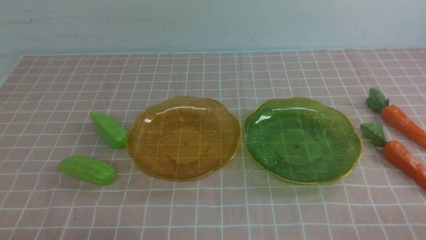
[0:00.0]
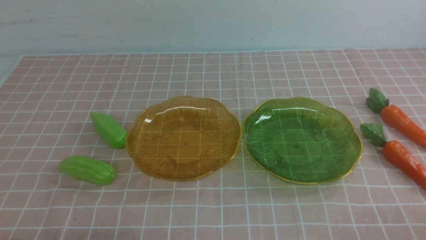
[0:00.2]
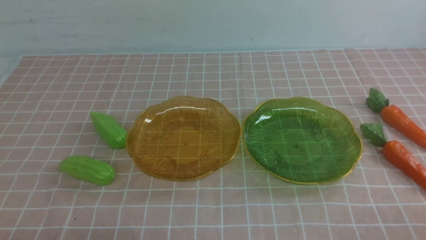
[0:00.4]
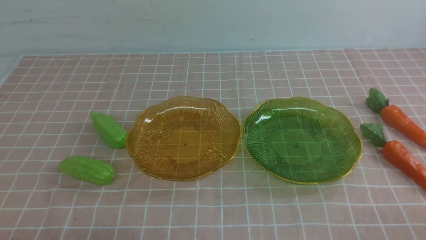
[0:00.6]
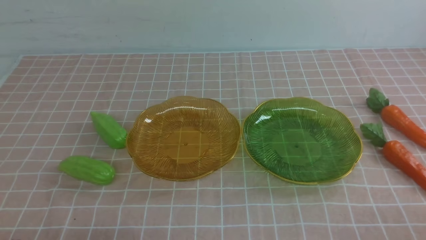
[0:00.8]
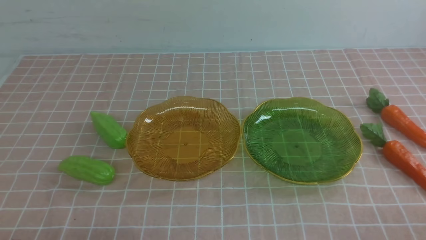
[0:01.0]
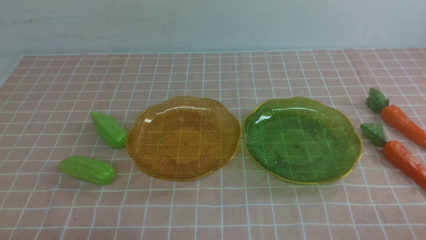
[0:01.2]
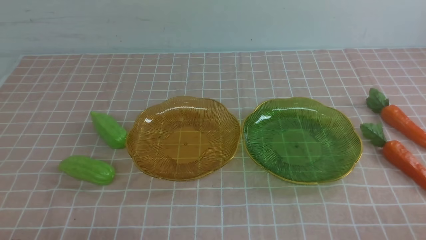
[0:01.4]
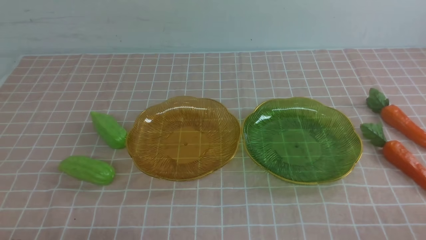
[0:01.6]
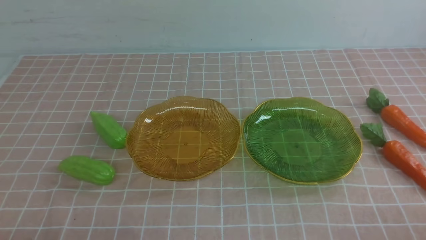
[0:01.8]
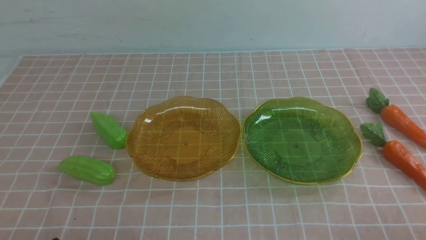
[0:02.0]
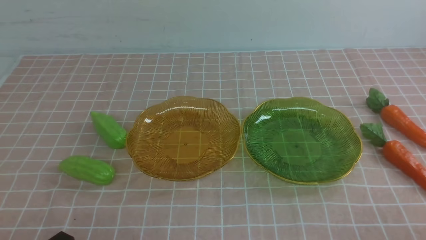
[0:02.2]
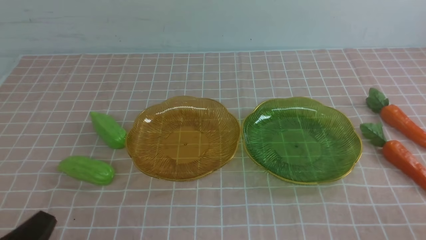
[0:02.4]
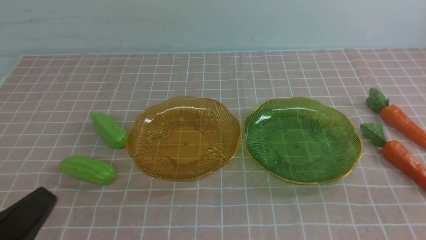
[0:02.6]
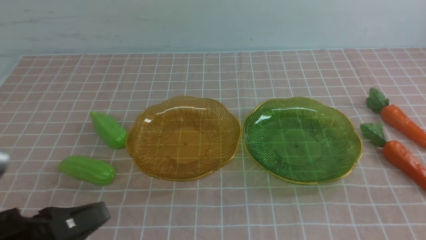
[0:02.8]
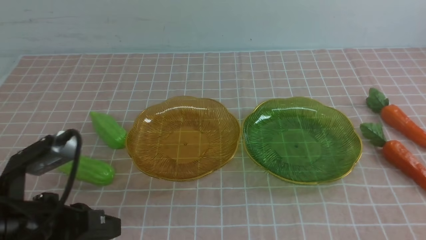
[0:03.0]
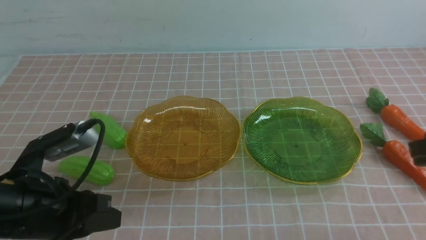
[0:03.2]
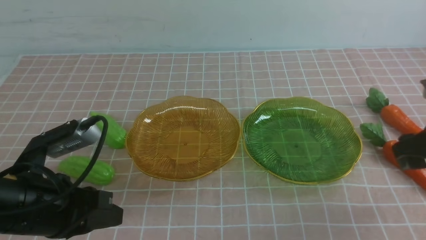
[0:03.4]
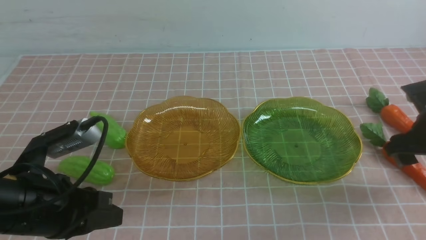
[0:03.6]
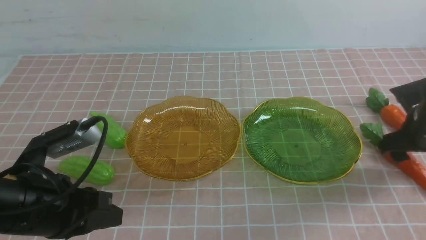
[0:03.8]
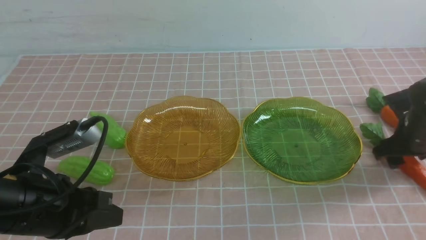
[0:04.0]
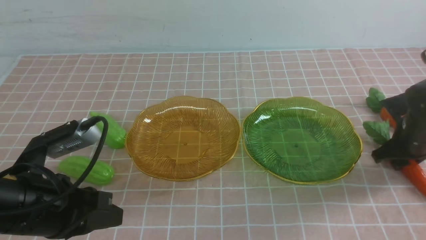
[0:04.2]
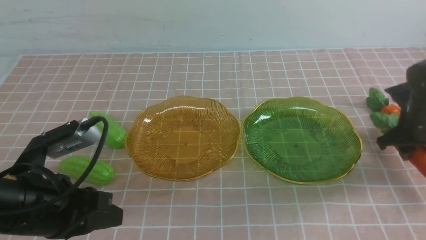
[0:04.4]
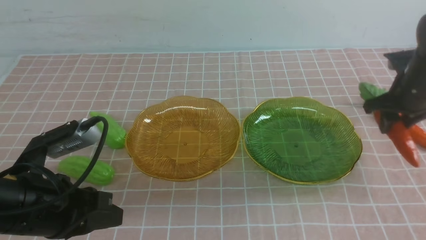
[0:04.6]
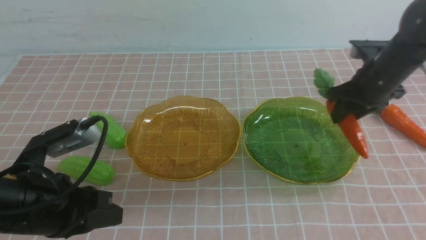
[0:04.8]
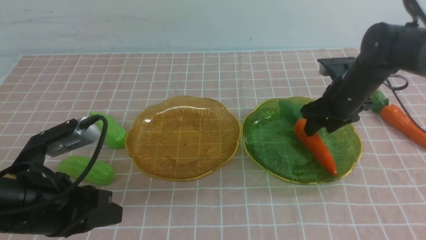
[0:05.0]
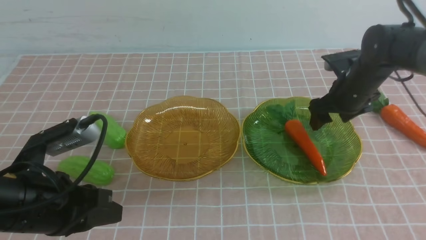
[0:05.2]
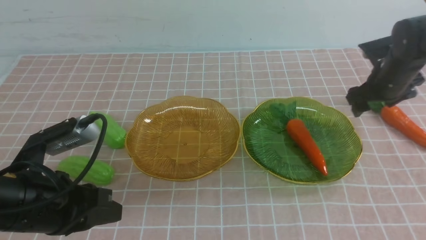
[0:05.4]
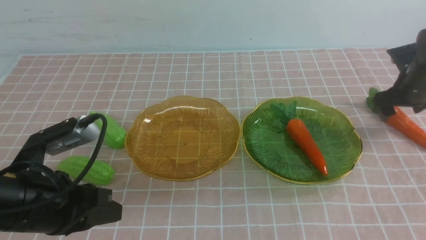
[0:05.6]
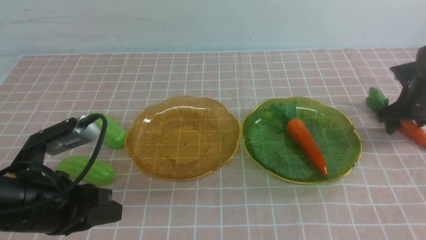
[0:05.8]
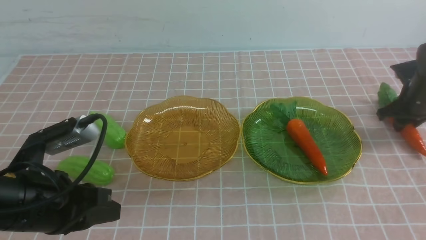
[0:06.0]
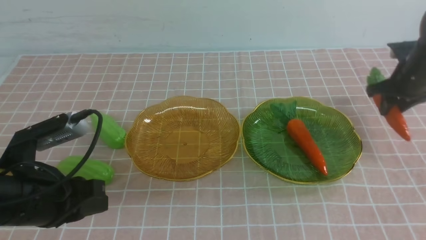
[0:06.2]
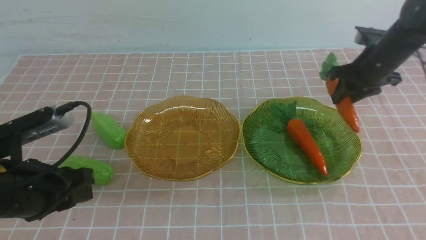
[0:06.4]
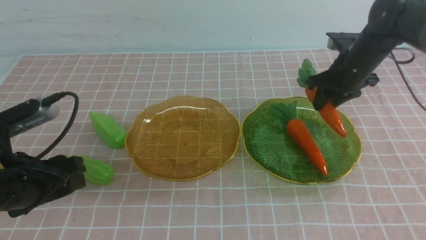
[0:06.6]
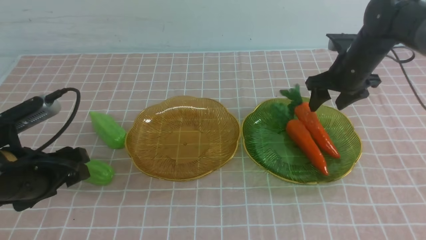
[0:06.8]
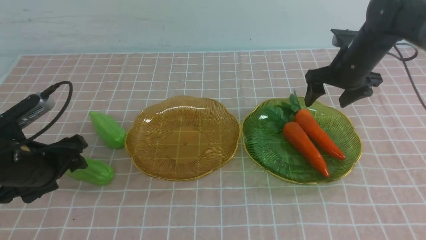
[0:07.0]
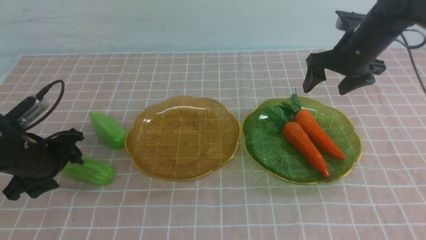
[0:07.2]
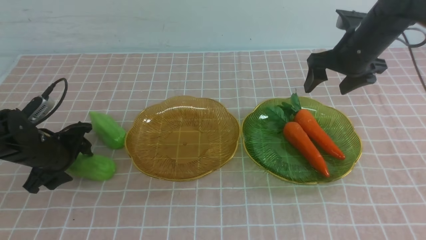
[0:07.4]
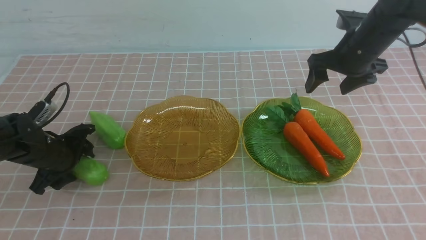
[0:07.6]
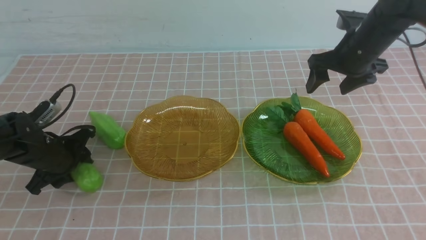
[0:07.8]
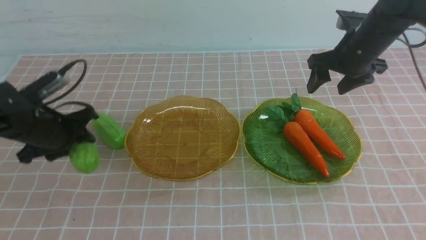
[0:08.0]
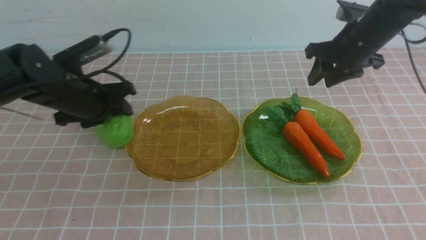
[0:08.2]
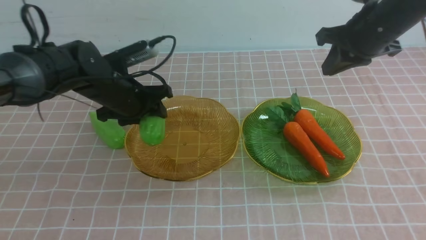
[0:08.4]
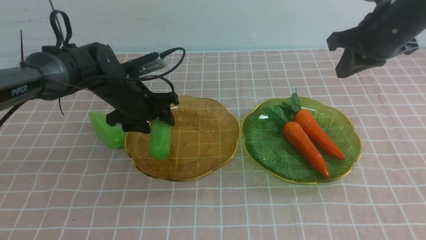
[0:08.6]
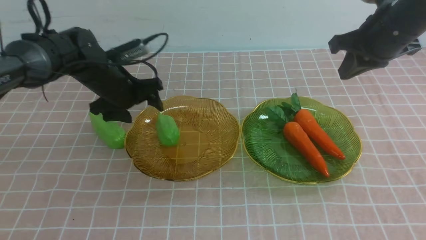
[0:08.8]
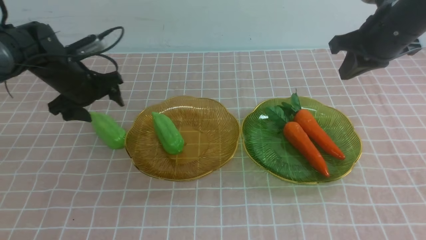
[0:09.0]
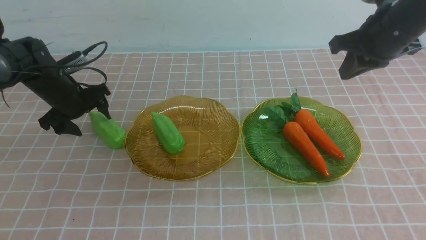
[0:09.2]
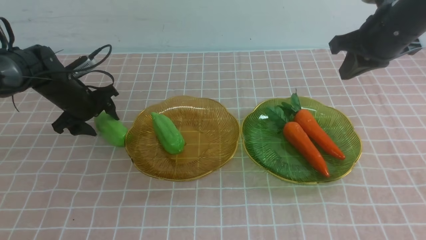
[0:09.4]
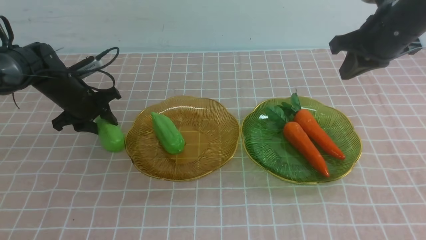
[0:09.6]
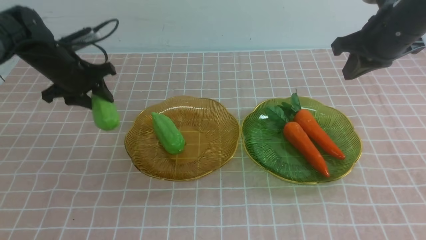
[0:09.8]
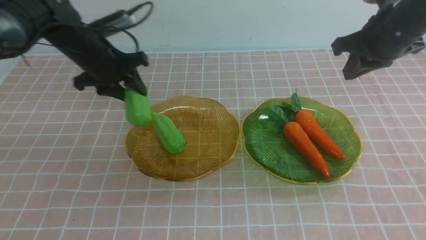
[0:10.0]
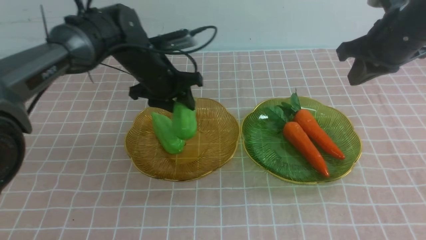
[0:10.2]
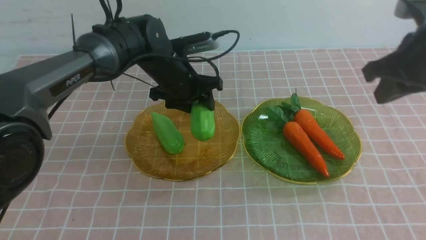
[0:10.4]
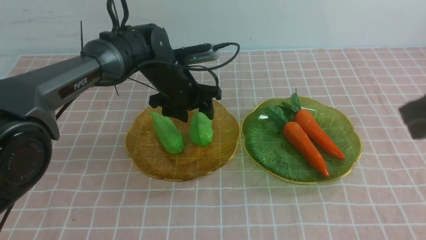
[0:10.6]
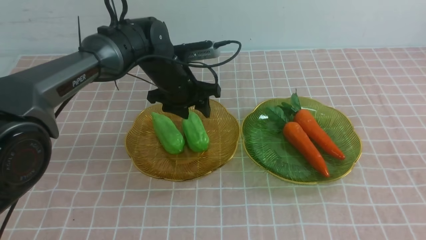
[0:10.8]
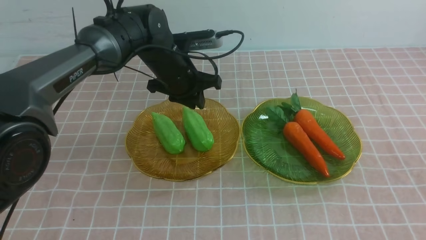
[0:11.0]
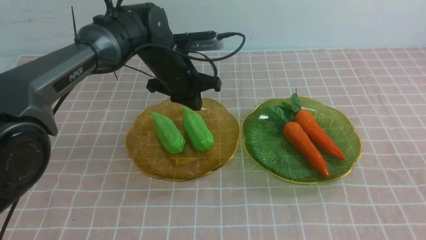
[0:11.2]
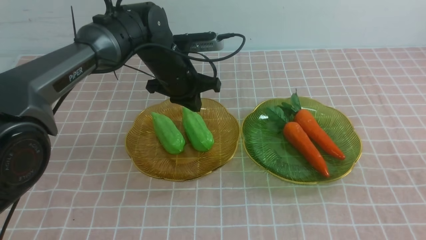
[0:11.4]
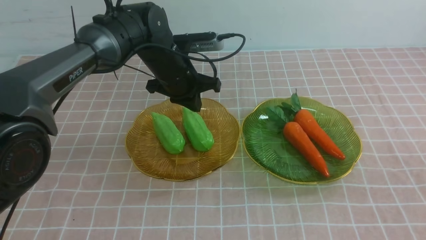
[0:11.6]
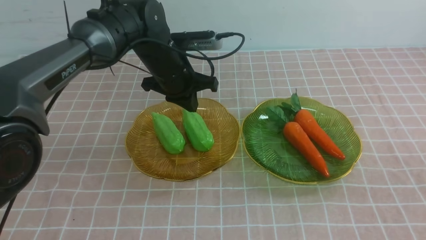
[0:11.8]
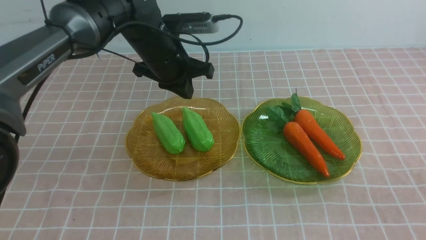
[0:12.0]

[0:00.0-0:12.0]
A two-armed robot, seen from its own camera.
Step, 0:00.0 to 0:05.0: use the right arm to grab a carrot and put it into the right plate.
Step, 0:05.2 to 0:06.8: use the right arm to grab a carrot and put it into the right plate.
Step, 0:07.0 to 0:10.6: use the left arm to grab a chayote and put it into the left plate.
0:01.6 to 0:03.0: The left gripper moves upward, forward and to the right, roughly 15 cm.
0:03.0 to 0:04.4: The right gripper moves forward and downward, roughly 25 cm, and opens and closes again.
0:04.4 to 0:06.0: The right gripper goes left and right, some 15 cm each way, reversing 2 times, and opens, then closes again.
0:06.0 to 0:07.6: The left gripper moves forward, downward and to the left, some 20 cm, and opens up. Meanwhile the right gripper heads to the left and upward, covering some 10 cm, and opens its fingers.
0:07.6 to 0:09.0: The left gripper is displaced forward by roughly 10 cm, and opens its fingers, while the right gripper moves upward and backward, approximately 10 cm, and closes its fingers.
0:09.0 to 0:10.4: The right gripper heads backward, covering approximately 10 cm. Meanwhile the left gripper is displaced to the right by about 20 cm.
0:10.4 to 0:12.0: The left gripper shifts some 5 cm upward, and closes up; the right gripper is displaced backward and downward by approximately 20 cm.

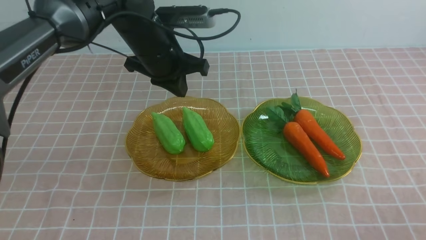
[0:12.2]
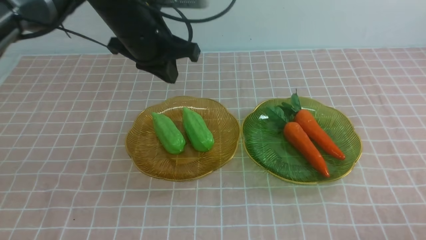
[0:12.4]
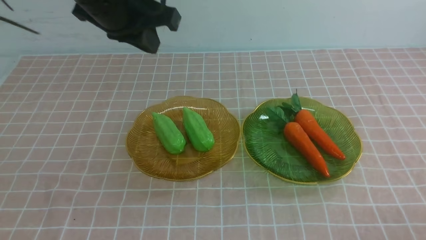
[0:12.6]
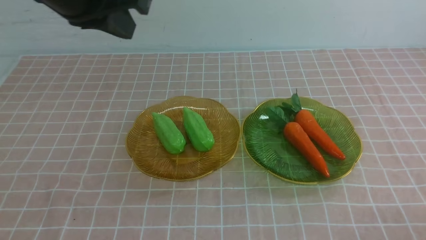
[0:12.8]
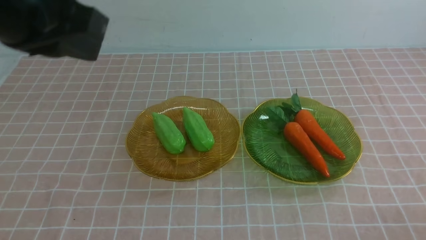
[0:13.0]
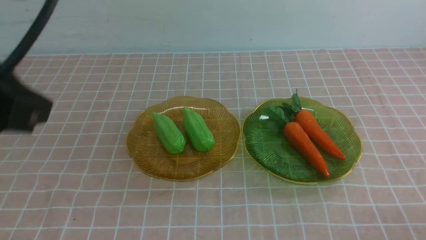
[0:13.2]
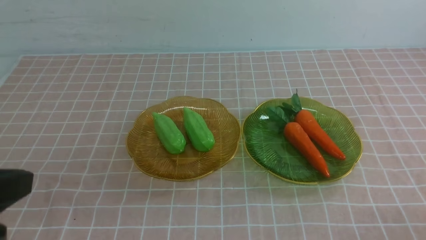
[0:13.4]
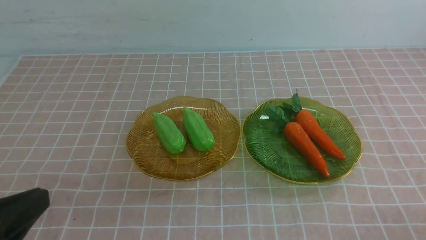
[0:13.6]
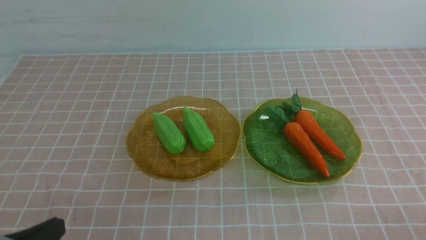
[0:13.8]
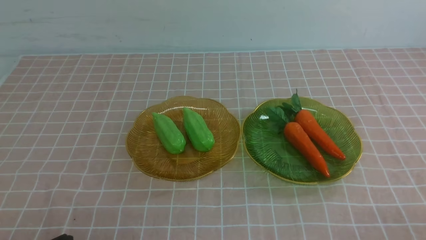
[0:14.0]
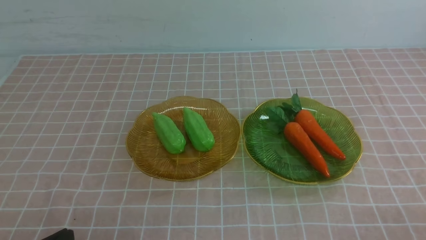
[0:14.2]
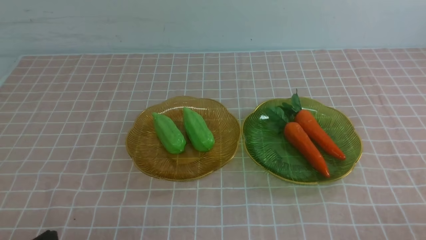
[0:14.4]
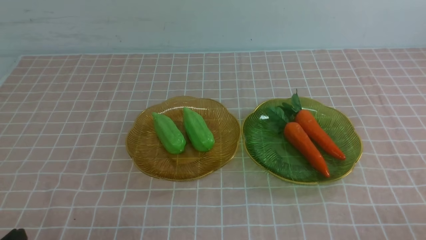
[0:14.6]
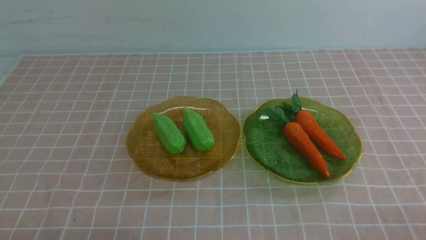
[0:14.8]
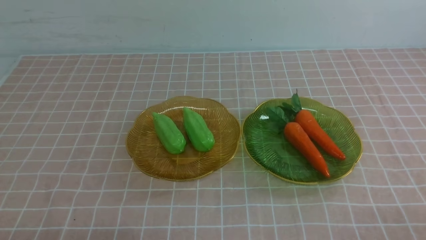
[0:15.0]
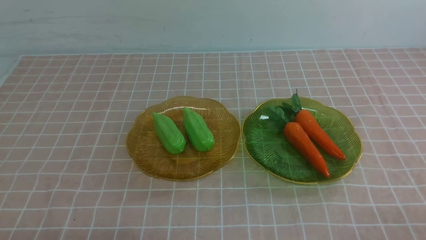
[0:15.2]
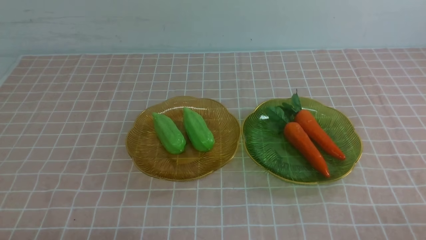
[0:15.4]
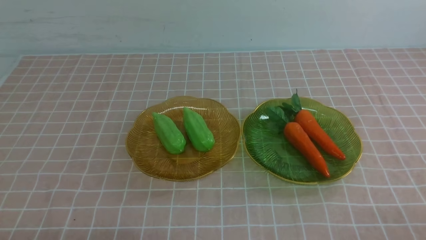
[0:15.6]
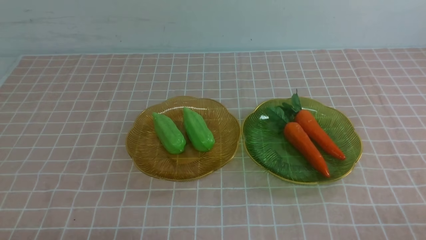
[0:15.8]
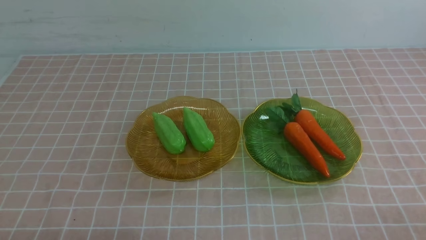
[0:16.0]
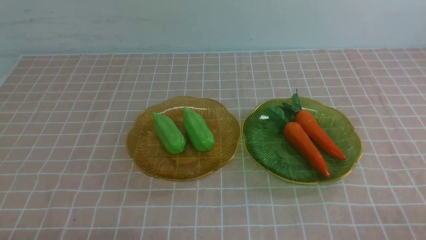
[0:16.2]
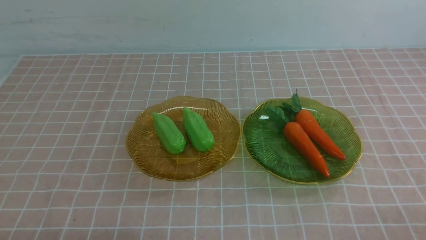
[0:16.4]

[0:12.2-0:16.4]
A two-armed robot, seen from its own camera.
0:12.2 to 0:13.6: The left gripper goes about 30 cm backward.
0:13.6 to 0:15.0: The left gripper shifts some 15 cm downward.
0:15.0 to 0:16.4: Neither gripper changes place.
